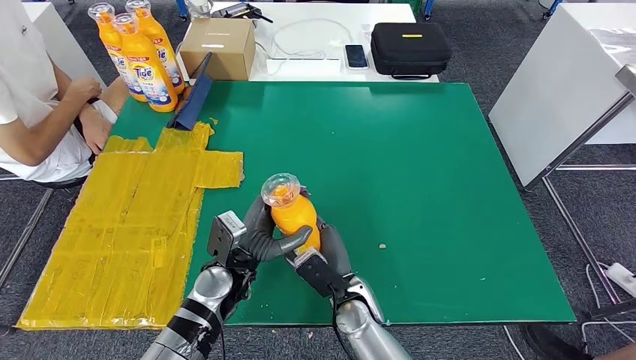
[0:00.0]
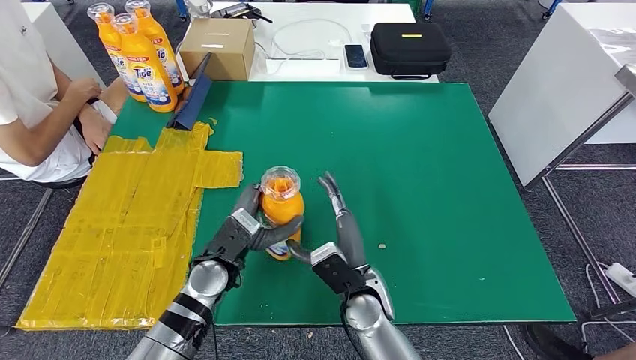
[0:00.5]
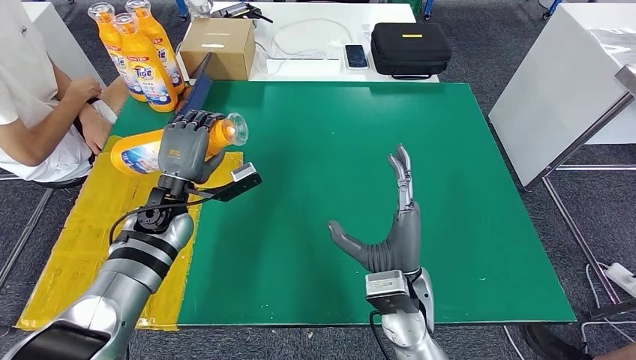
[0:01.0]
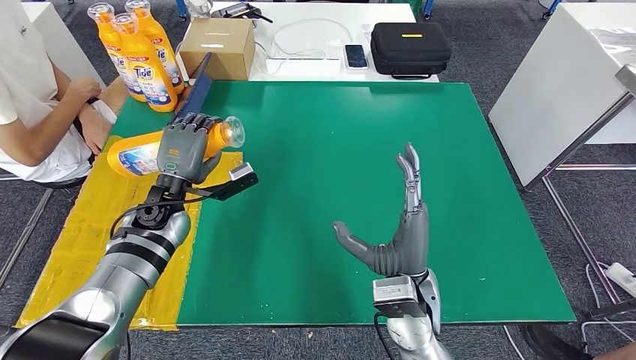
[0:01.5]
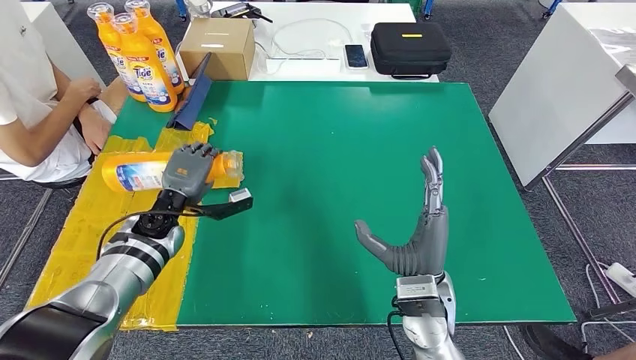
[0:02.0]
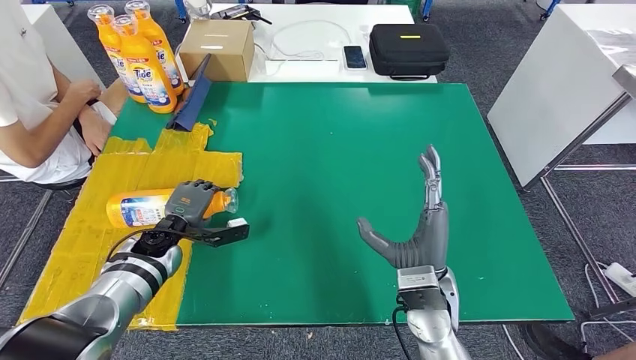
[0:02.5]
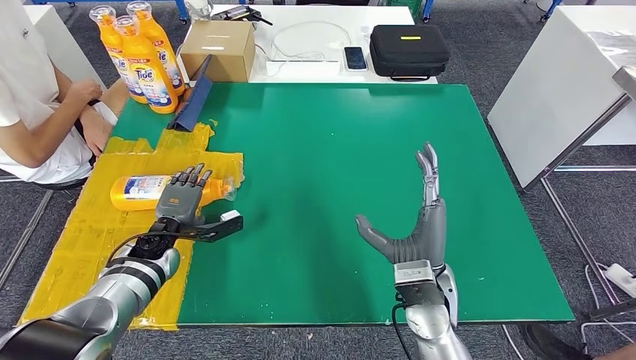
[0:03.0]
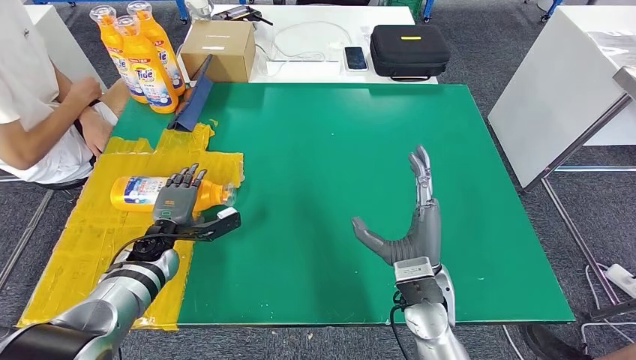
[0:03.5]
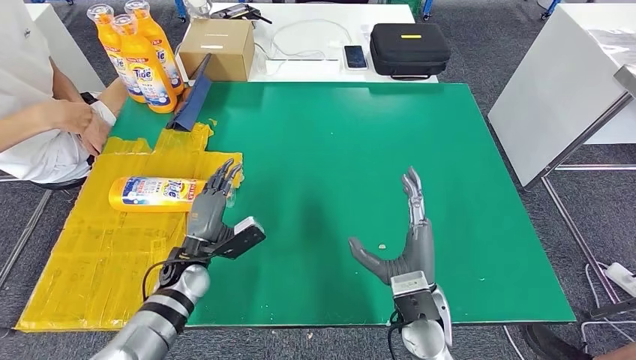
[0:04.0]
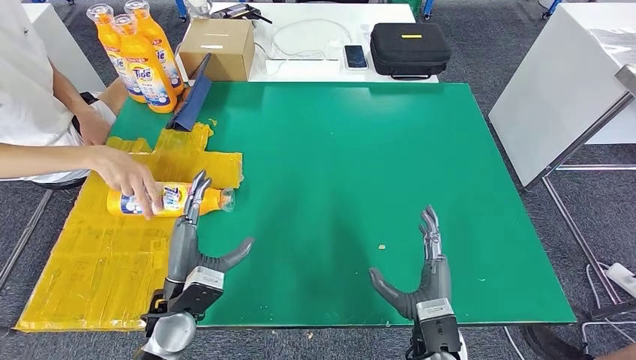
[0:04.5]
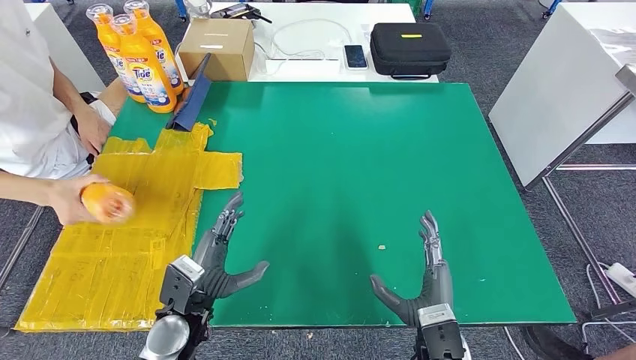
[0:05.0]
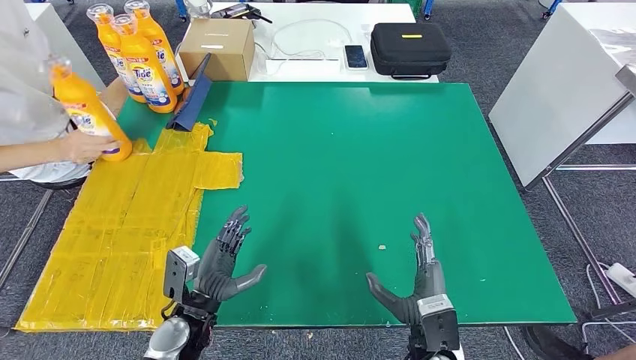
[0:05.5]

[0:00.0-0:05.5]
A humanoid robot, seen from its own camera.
Step, 0:00.0 to 0:05.5: Flip the fast-moving consumer goods bottle to the front side.
0:02.0 to 0:03.5: The left hand moves downward, approximately 5 cm.
